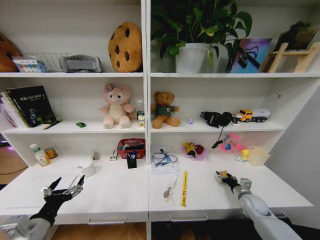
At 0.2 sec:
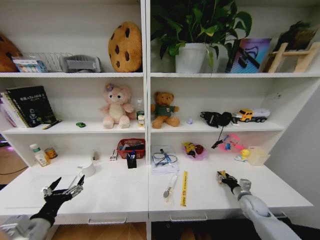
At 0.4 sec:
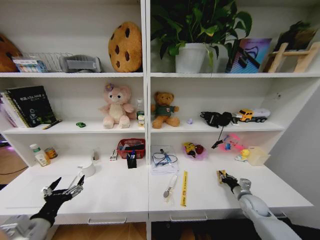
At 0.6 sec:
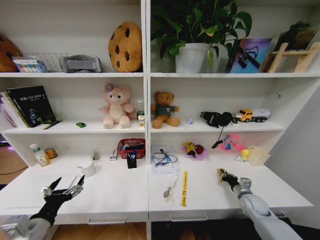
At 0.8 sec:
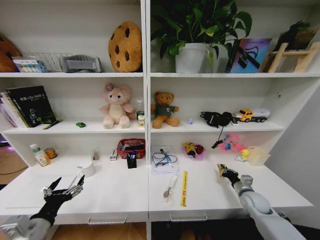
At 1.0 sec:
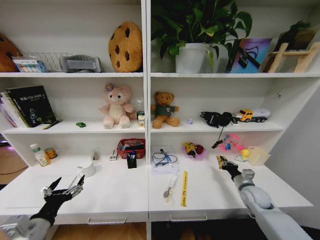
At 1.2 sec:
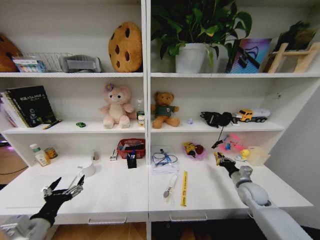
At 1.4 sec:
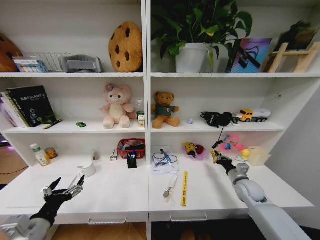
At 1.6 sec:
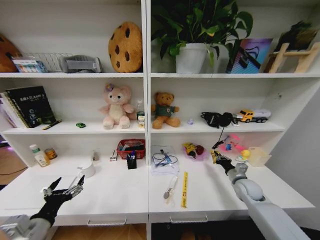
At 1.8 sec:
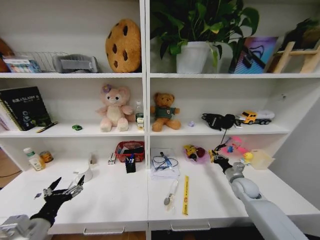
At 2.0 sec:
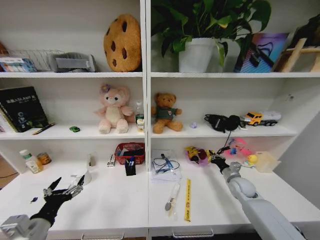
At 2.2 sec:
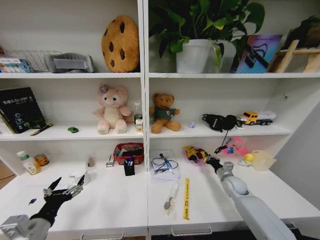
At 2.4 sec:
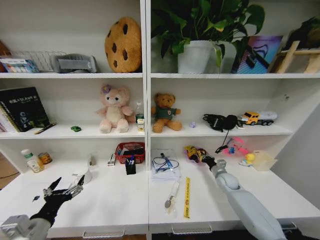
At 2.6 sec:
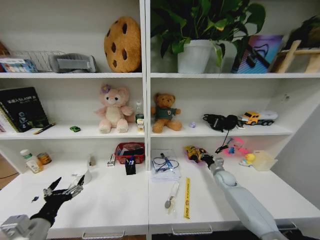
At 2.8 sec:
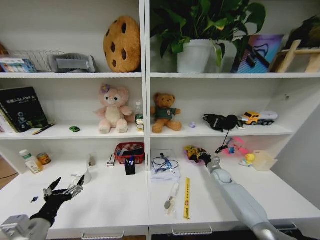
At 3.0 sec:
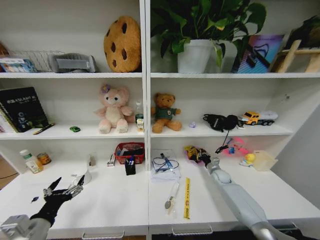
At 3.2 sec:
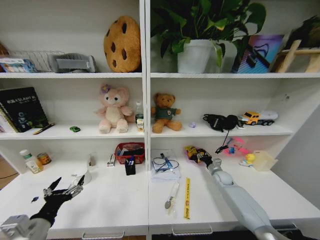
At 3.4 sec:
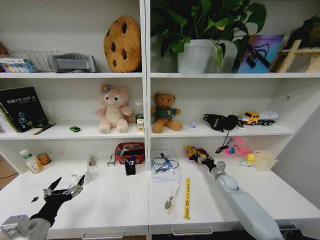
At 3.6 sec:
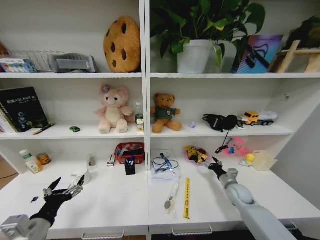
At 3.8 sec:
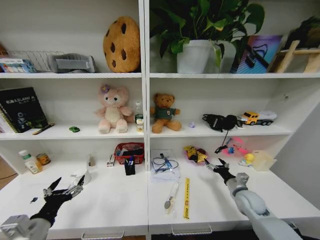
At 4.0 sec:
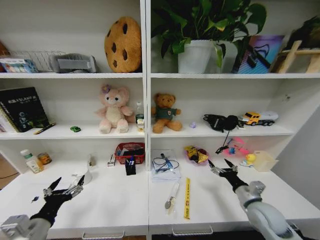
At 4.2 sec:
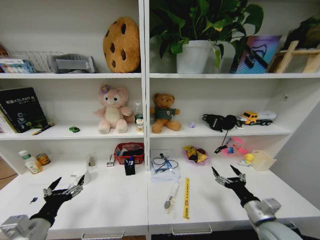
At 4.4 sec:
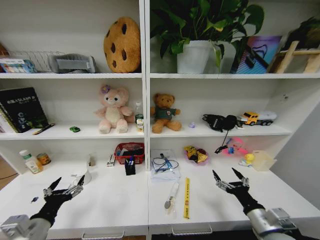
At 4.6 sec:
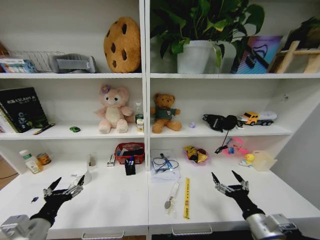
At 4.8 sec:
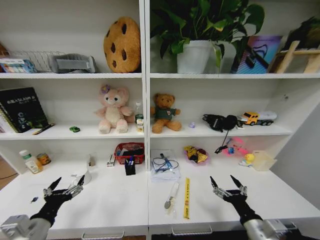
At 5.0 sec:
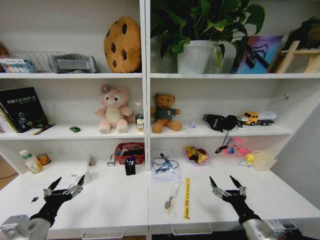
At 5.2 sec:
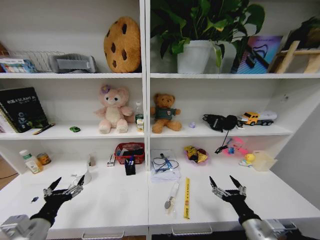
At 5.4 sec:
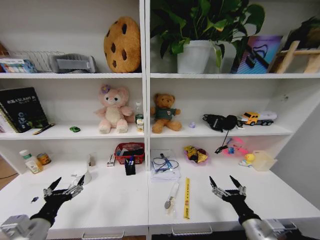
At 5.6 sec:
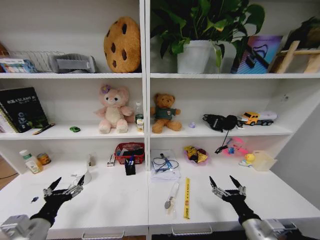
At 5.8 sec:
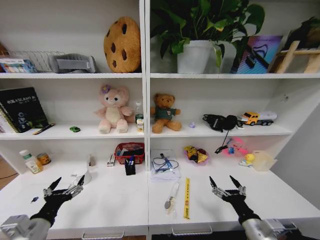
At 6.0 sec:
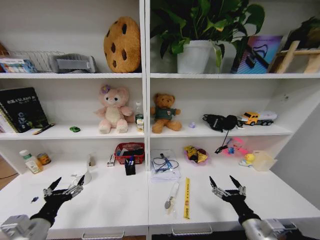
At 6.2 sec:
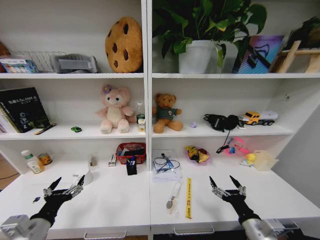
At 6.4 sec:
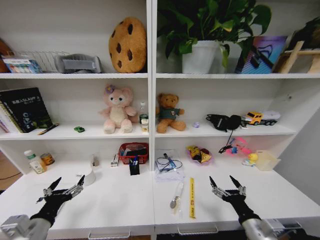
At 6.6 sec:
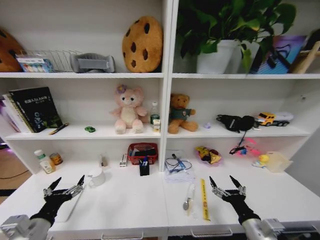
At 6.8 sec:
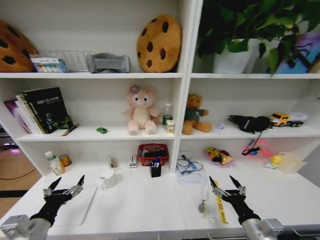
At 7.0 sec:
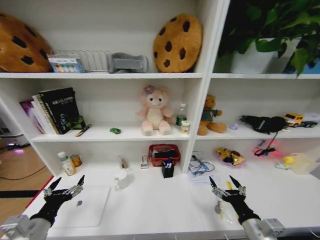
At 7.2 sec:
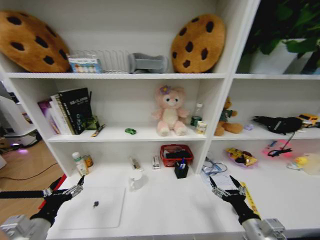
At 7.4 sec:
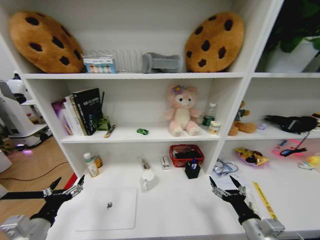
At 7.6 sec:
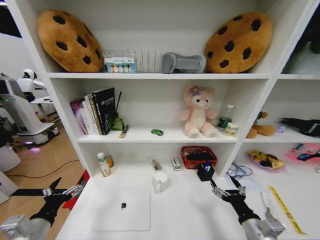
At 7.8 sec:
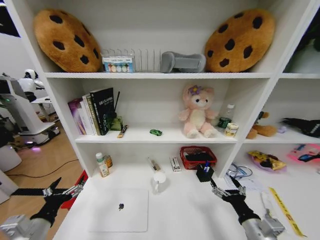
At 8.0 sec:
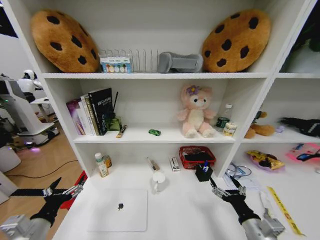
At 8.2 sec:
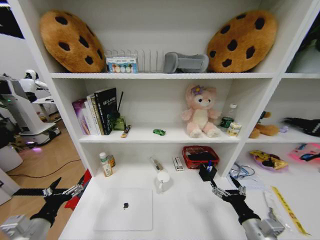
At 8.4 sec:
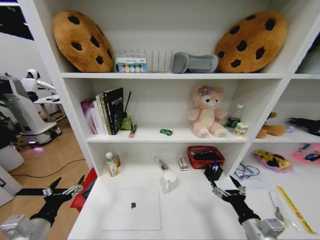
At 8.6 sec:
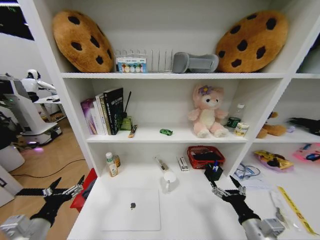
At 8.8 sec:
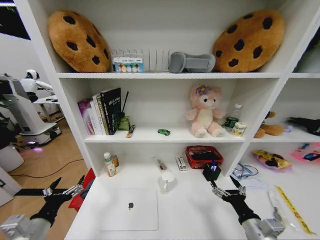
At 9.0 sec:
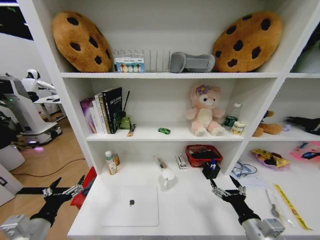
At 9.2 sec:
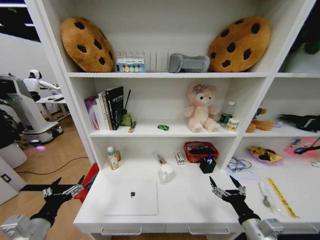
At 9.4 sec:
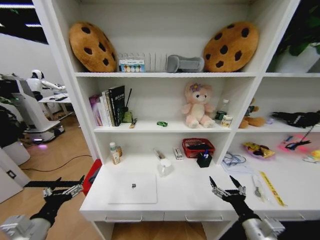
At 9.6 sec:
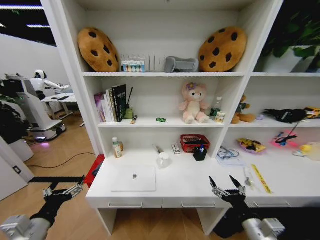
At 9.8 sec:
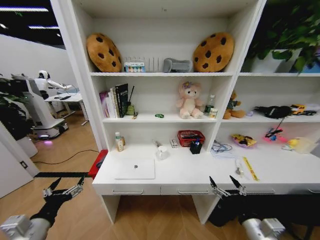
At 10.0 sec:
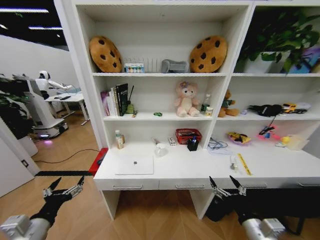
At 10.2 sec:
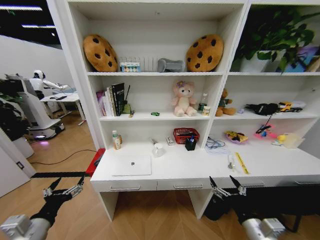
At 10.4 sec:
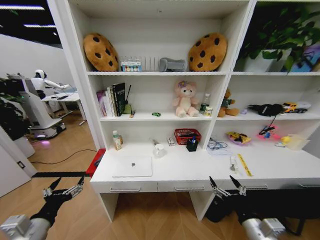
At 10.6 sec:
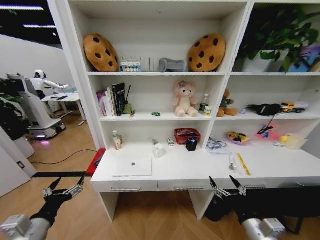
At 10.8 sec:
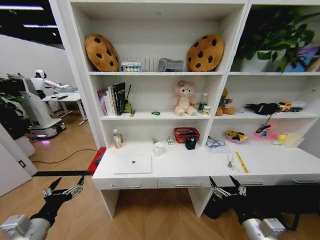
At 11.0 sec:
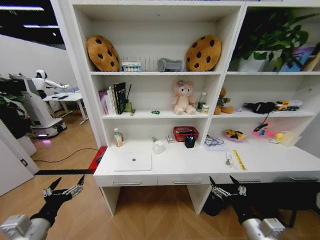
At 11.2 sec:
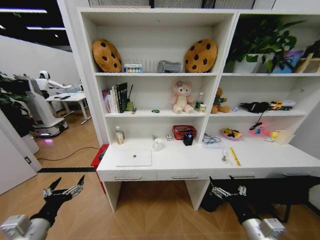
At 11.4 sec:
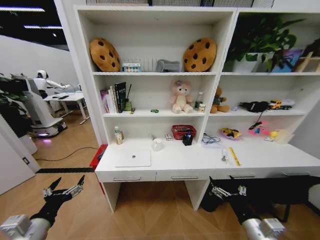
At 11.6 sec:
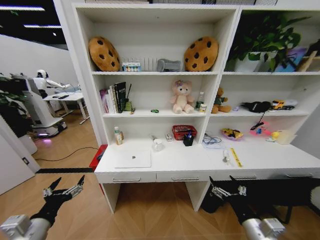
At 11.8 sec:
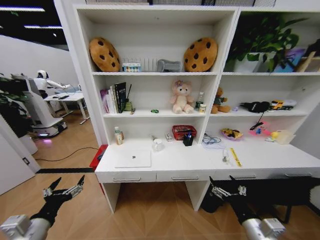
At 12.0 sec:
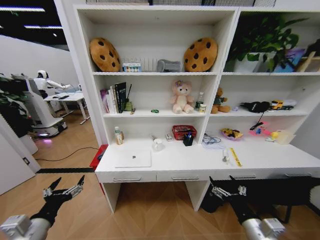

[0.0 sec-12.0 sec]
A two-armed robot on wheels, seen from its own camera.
Task of the whole recording: Organize the objects on the table.
0.0 sec to 1.6 sec: The right gripper heads upward, covering about 5 cm, and closes its fingers.
1.6 sec to 3.0 sec: The right gripper heads forward and downward, covering about 15 cm.
3.0 sec to 4.4 sec: The right gripper travels backward and upward by roughly 35 cm, and opens its fingers.
4.4 sec to 6.0 sec: The grippers move only a little.
